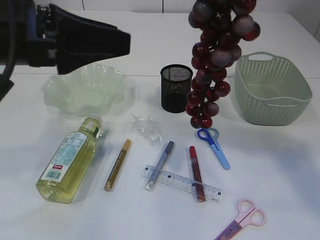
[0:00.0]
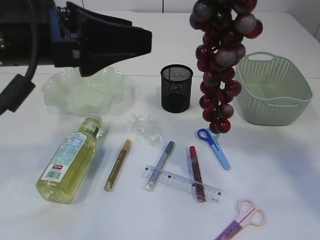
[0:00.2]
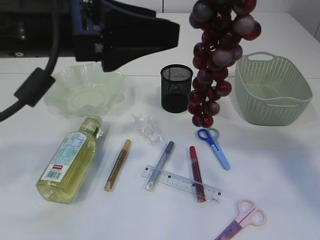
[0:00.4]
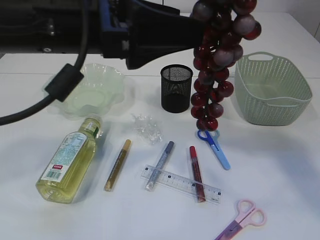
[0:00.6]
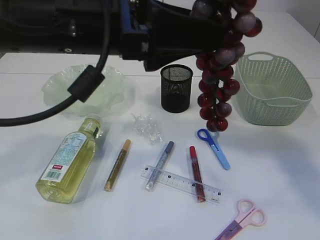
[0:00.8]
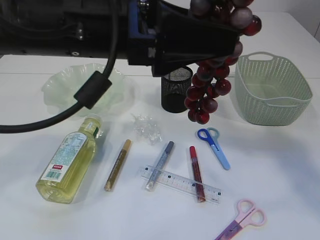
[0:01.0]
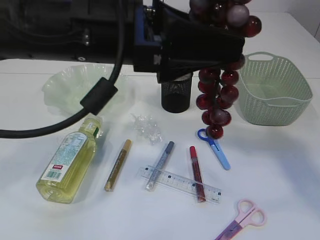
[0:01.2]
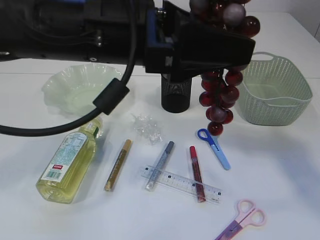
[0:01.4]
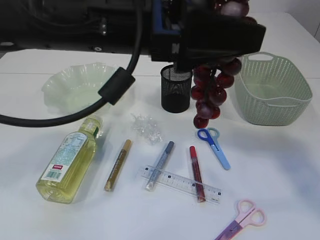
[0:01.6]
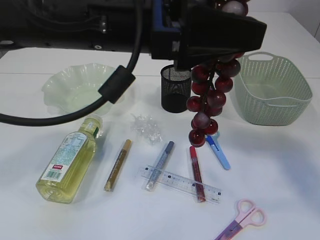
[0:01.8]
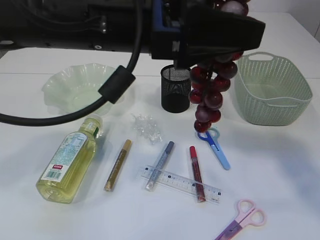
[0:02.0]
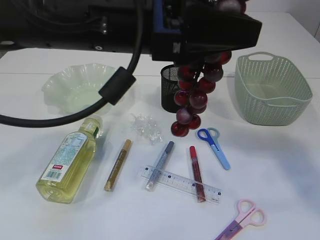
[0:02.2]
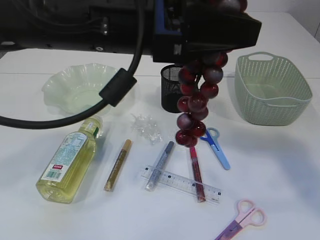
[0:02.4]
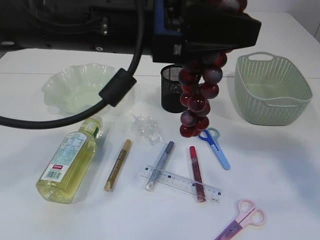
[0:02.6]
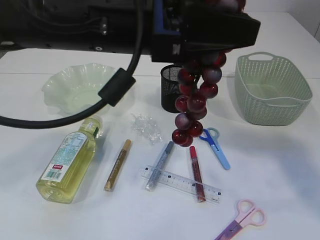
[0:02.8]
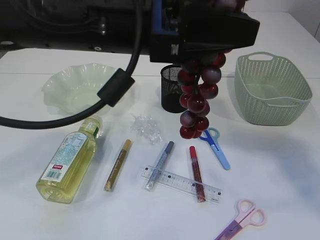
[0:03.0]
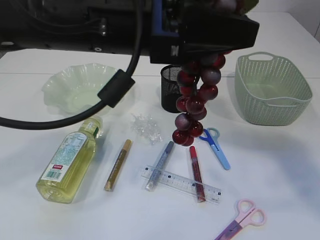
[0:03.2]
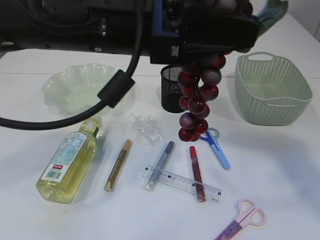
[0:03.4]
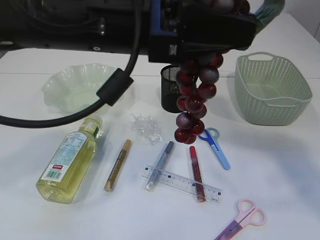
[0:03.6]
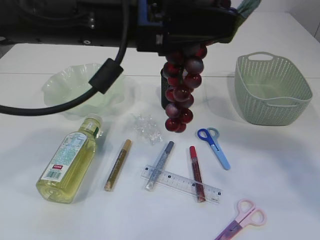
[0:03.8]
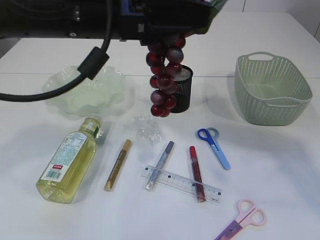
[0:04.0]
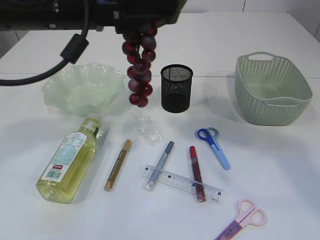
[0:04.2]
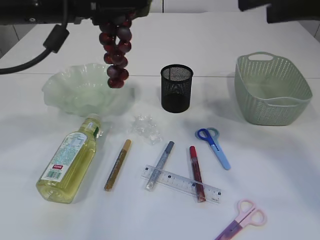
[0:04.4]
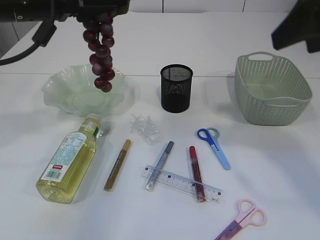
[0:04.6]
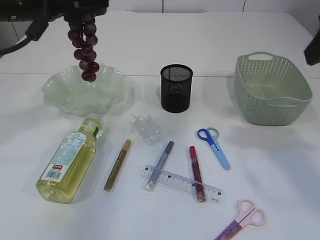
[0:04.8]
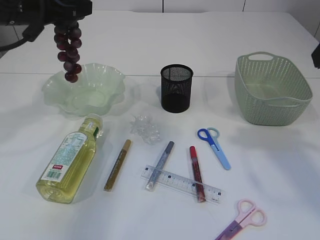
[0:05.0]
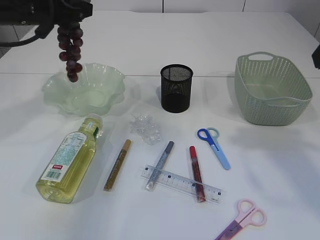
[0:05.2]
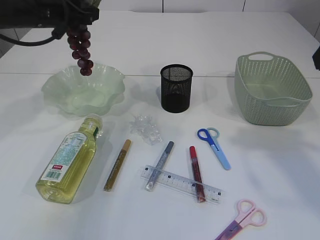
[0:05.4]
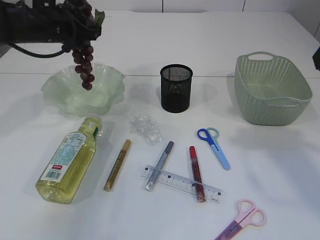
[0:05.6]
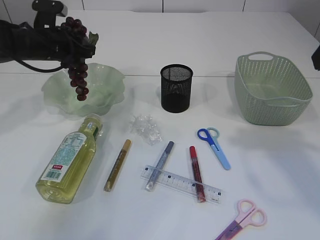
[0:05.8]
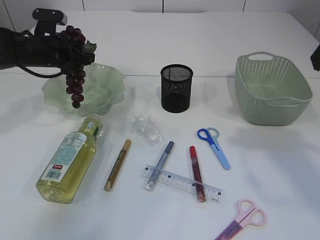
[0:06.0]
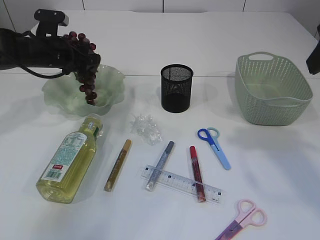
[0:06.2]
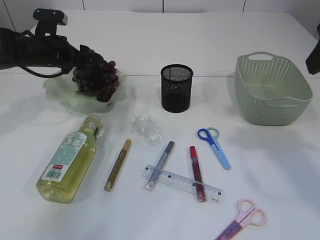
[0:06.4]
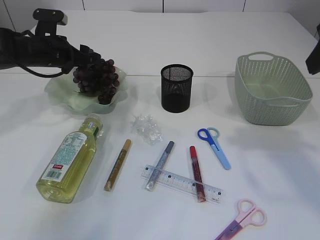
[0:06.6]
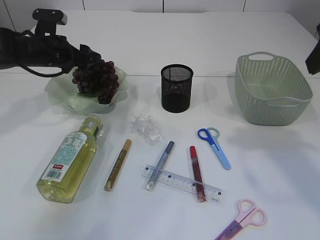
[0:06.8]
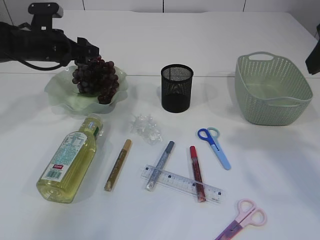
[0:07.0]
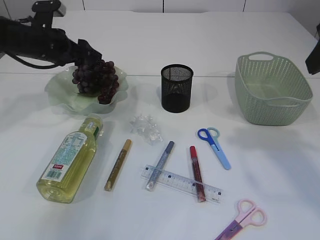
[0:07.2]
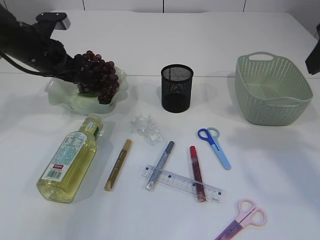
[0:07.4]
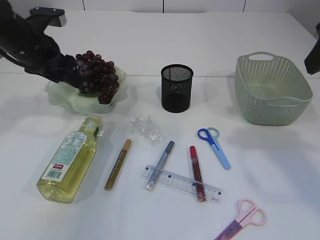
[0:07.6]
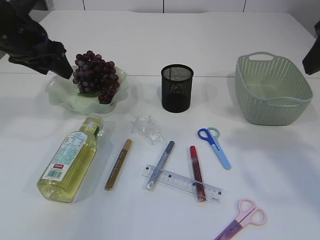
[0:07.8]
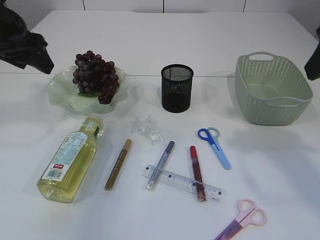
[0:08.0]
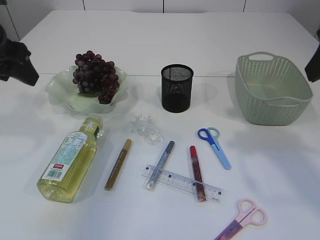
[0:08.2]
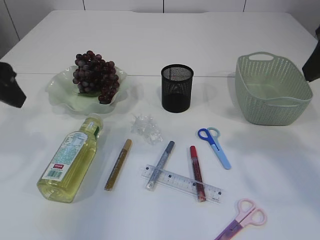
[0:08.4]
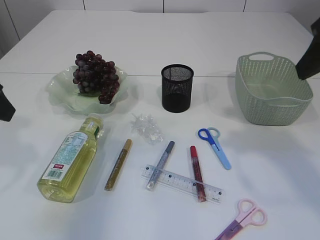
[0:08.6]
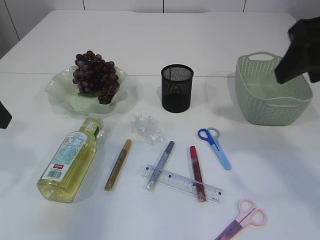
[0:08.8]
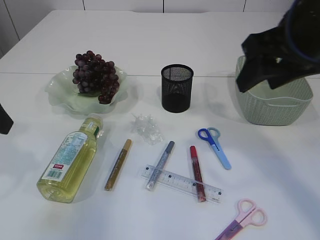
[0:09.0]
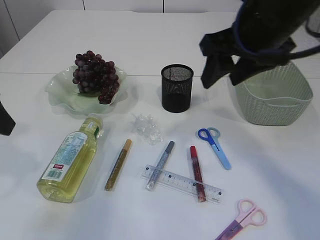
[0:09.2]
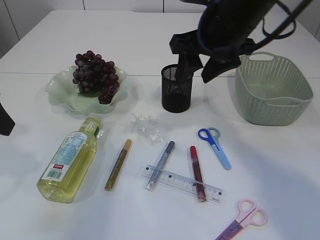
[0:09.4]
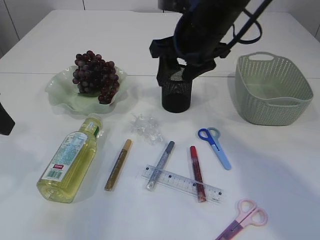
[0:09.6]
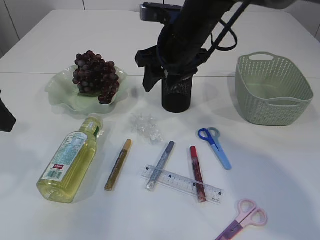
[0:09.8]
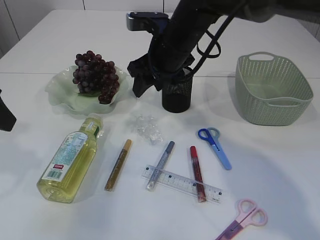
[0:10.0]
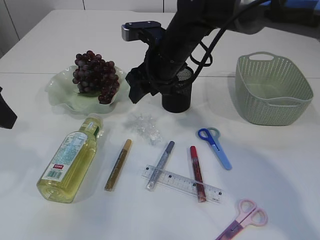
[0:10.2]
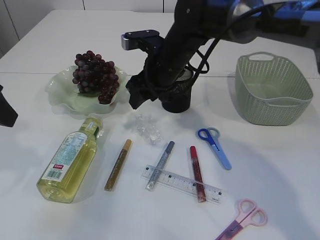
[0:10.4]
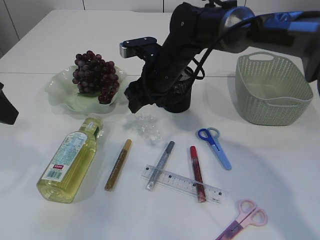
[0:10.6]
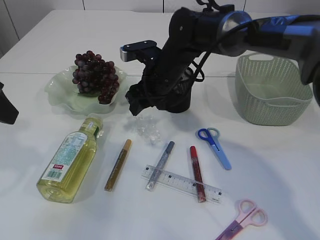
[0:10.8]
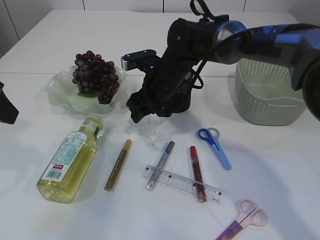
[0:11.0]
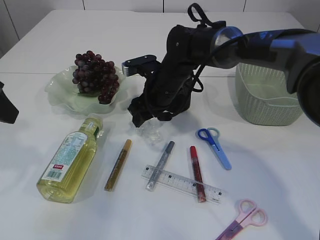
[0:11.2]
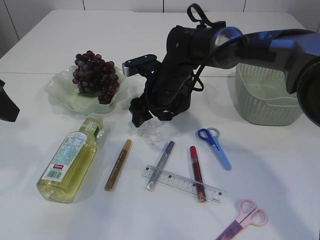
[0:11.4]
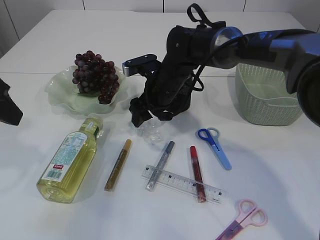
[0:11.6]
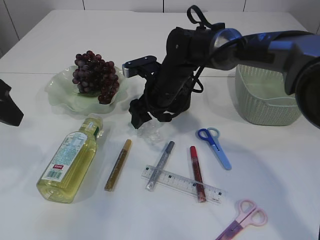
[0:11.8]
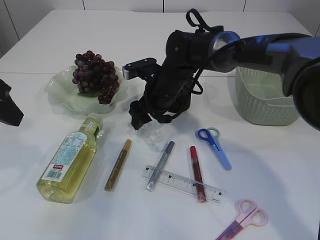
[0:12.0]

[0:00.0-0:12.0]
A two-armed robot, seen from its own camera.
Step, 0:00.0 to 0:03.8: Hand over the grapes.
Step, 0:04.0 to 0:07.6: Place the grapes in the plate.
0:00.0 to 0:01.6: The left gripper goes some 10 cm to the right, and opens up.
0:01.6 to 0:03.0: The right gripper opens its fingers. The left gripper closes.
0:03.0 to 0:04.4: The left gripper goes some 10 cm to the left and forward.
0:04.4 to 0:06.0: The right gripper is displaced to the right by roughly 5 cm. Meanwhile the left gripper is displaced forward, downward and to the left by some 25 cm.
0:06.0 to 0:07.6: The left gripper heads backward and upward, covering approximately 10 cm, and opens up.
0:07.6 to 0:09.0: The left gripper goes some 15 cm backward, while the right gripper goes roughly 5 cm to the left.
0:09.0 to 0:10.4: The right gripper heads forward, to the left and downward, covering about 25 cm.
0:10.4 to 0:12.0: The right gripper is displaced downward by some 5 cm.

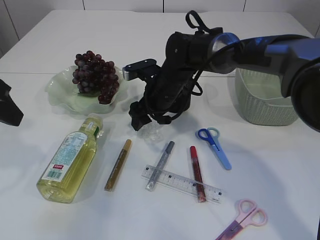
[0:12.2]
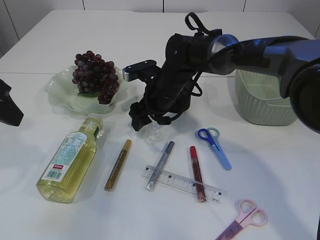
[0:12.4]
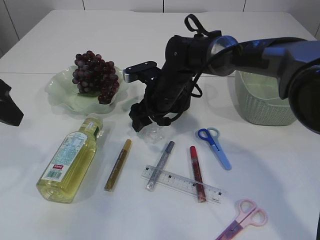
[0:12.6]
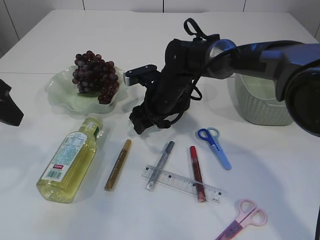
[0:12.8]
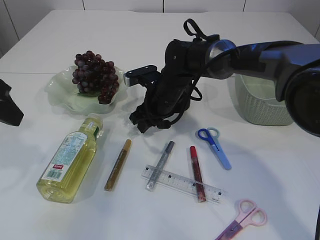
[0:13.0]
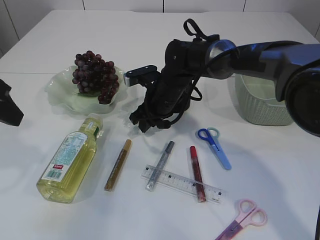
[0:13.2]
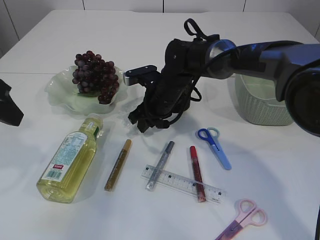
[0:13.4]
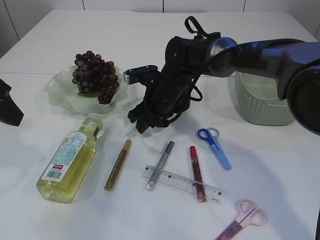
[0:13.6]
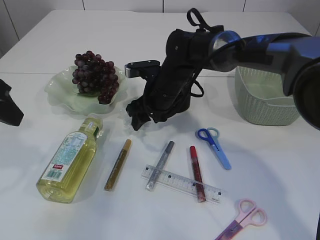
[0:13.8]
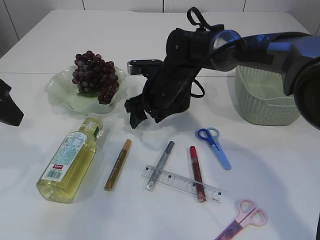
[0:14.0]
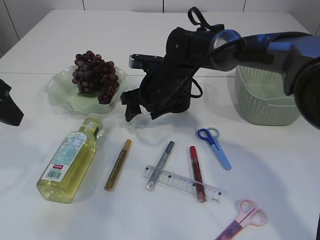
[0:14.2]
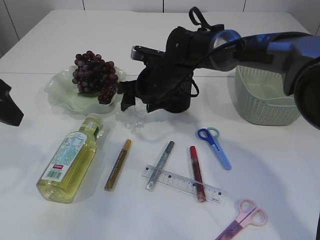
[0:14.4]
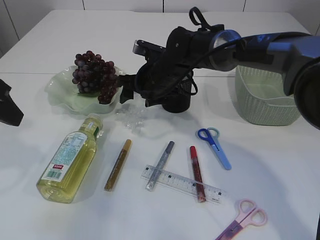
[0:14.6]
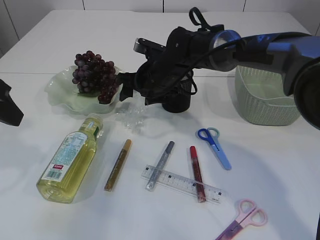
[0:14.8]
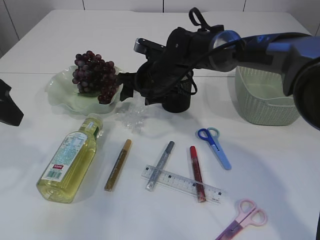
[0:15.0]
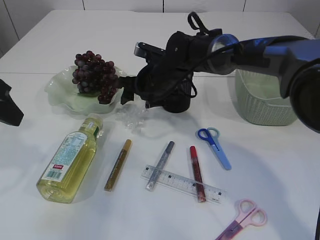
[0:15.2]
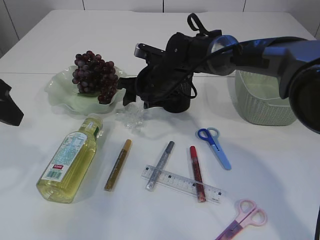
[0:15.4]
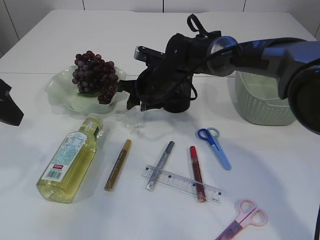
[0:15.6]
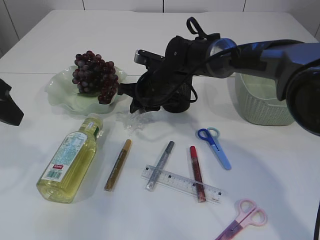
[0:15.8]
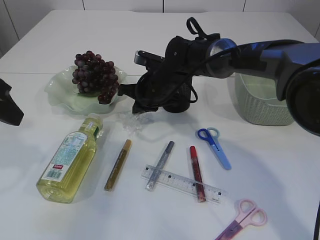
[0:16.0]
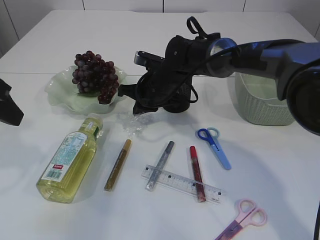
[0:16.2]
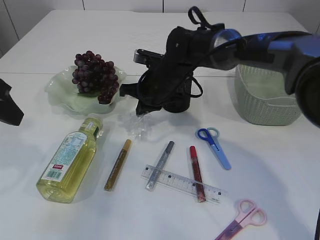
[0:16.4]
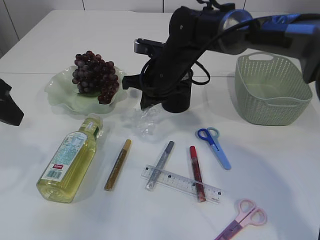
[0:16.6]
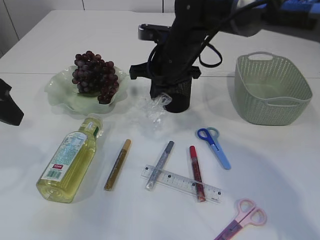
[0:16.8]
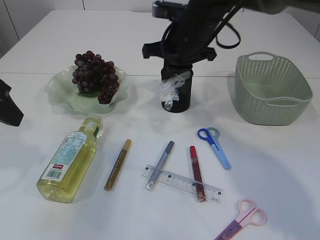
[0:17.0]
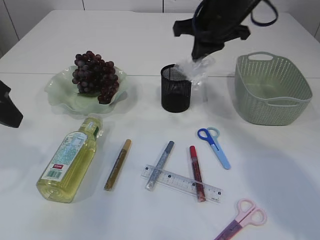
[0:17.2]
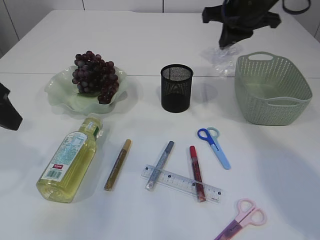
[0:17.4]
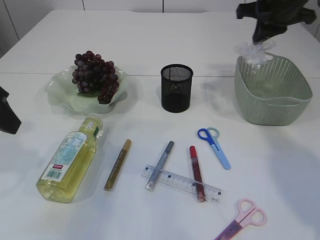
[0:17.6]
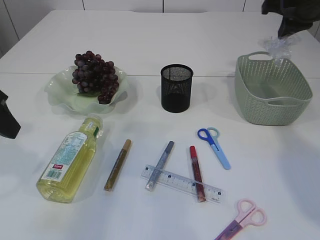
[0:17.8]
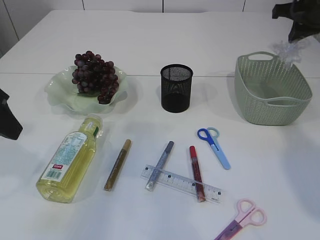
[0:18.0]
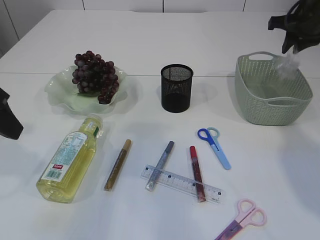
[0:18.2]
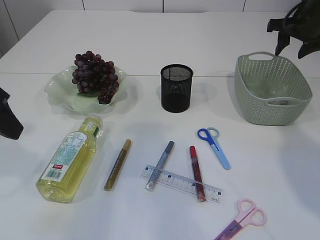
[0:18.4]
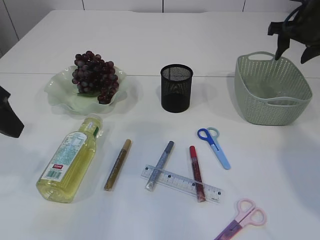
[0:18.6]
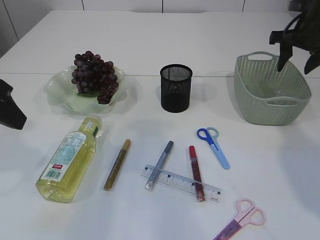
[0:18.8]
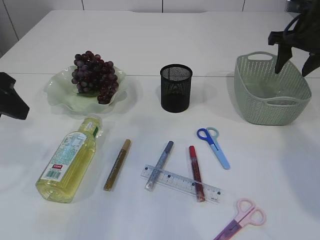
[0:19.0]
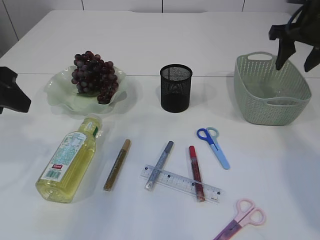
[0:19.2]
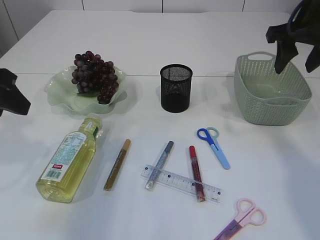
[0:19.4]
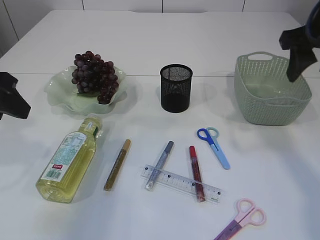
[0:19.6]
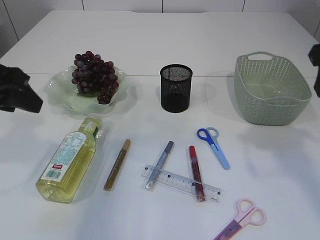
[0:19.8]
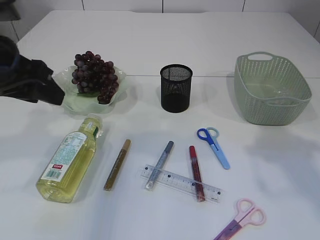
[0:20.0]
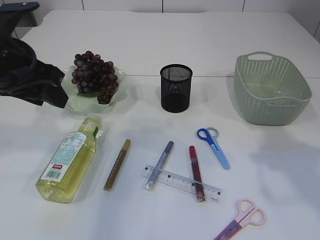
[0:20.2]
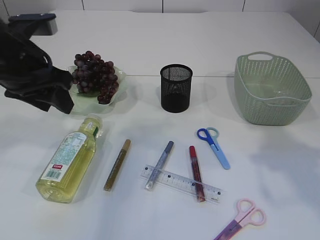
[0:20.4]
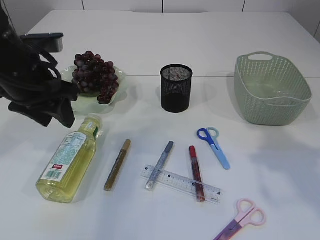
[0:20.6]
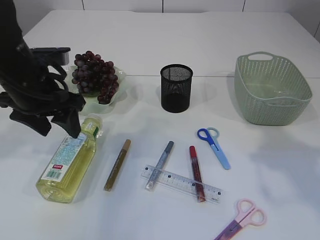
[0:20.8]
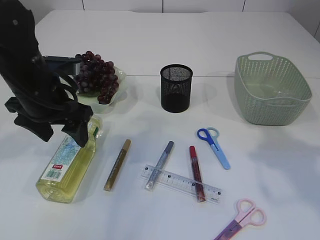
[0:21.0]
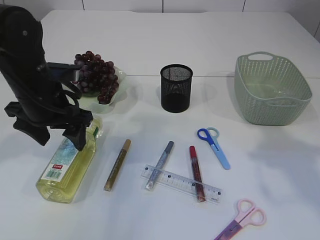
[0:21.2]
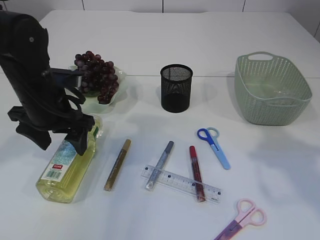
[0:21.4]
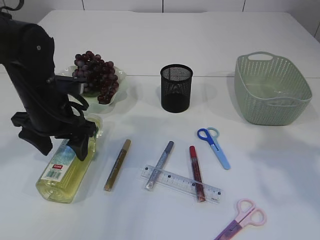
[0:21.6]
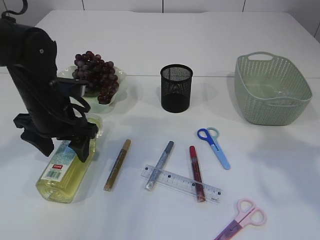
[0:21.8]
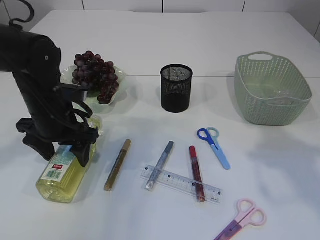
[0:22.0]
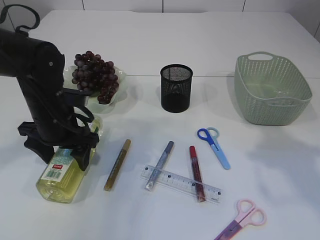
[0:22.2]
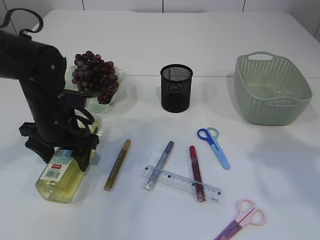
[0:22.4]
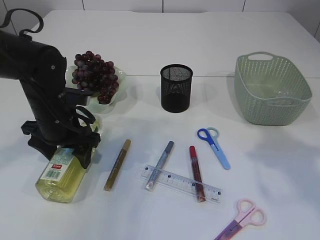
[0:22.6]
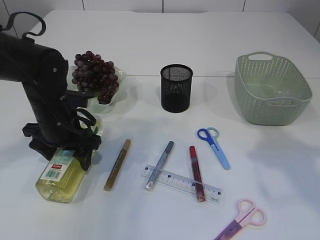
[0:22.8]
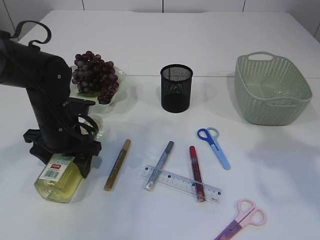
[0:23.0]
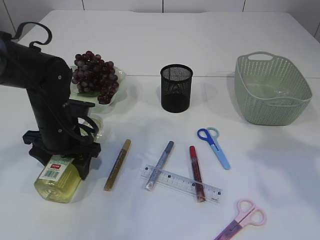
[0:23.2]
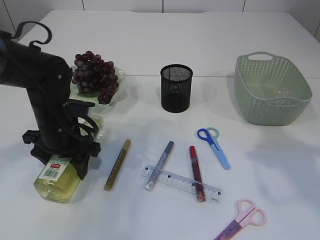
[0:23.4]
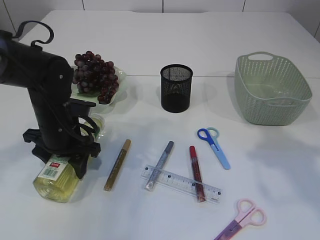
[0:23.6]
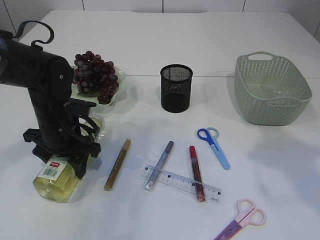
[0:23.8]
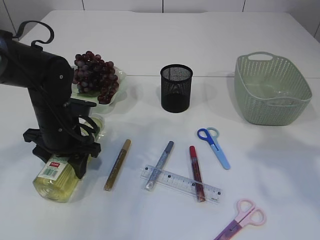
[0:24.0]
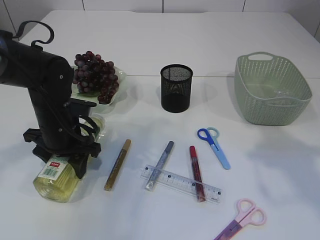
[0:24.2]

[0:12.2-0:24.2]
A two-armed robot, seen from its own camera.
Step, 0:12.2 to 0:17.0: Pick up the plastic.
Step, 0:17.2 to 0:18.6: Place the plastic in the basket.
0:12.2 to 0:13.8: The right gripper closes and opens again.
0:15.2 to 0:16.6: The right gripper closes up.
0:16.6 to 0:18.2: The right gripper heads to the right, covering approximately 30 cm.
0:18.2 to 0:19.8: The right gripper is displaced backward by about 20 cm, and opens up.
0:19.8 to 0:21.2: The left gripper moves downward, forward and to the right, about 15 cm, and opens.
0:21.2 to 0:22.6: The left gripper is displaced downward by about 5 cm.
0:22.6 to 0:24.2: The grippers stay close to where they were, moving slightly.
